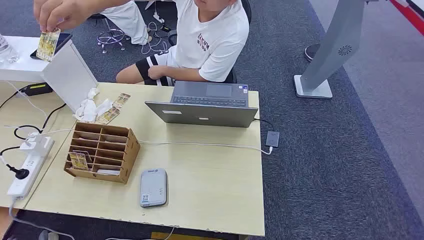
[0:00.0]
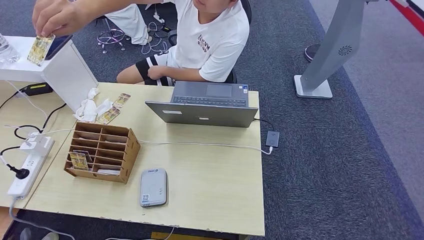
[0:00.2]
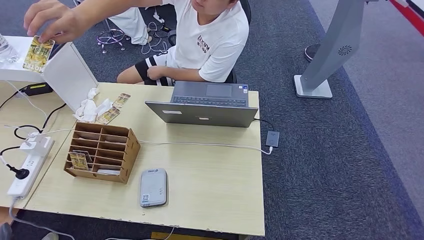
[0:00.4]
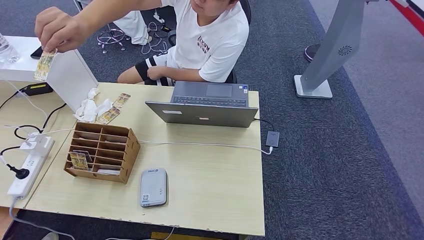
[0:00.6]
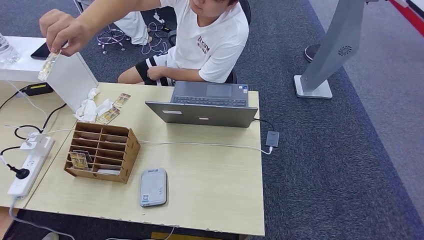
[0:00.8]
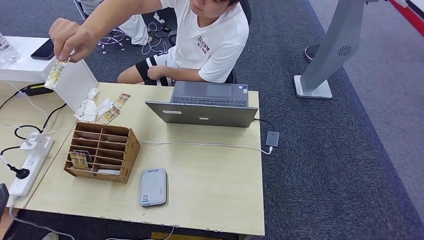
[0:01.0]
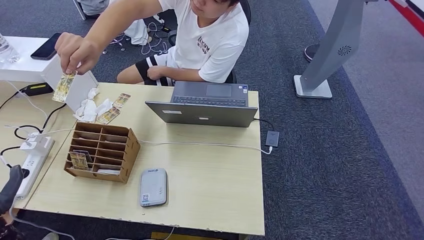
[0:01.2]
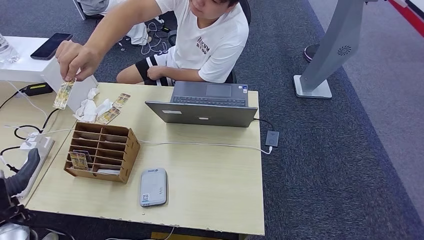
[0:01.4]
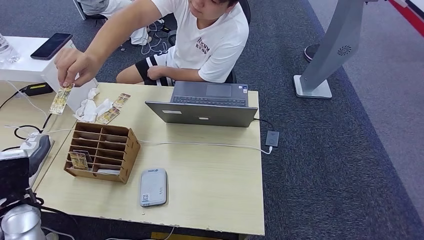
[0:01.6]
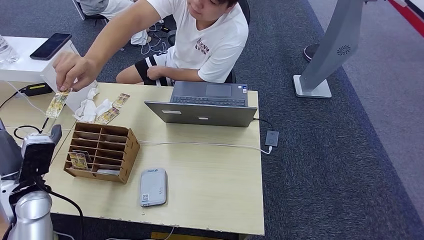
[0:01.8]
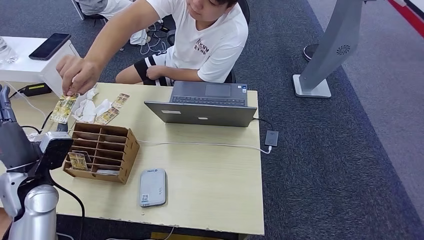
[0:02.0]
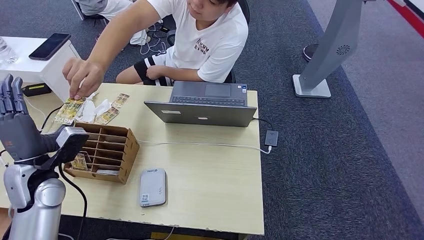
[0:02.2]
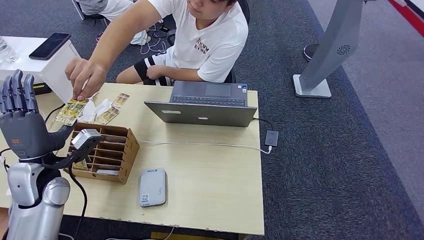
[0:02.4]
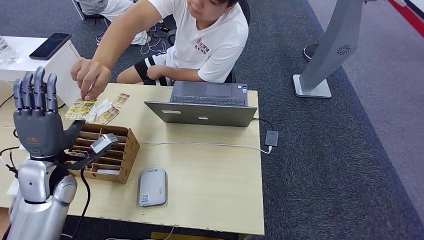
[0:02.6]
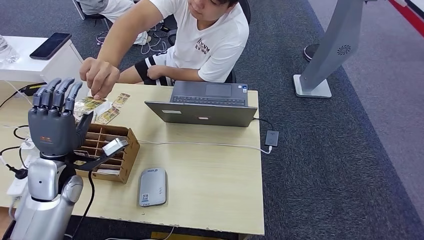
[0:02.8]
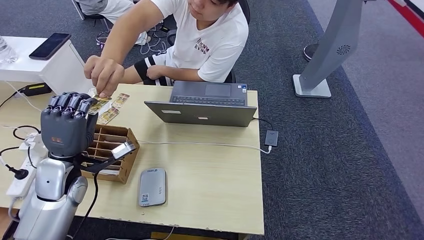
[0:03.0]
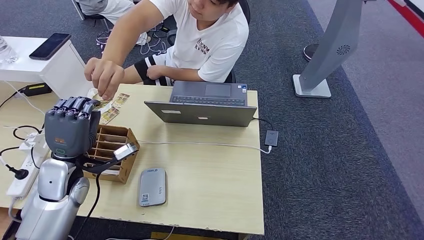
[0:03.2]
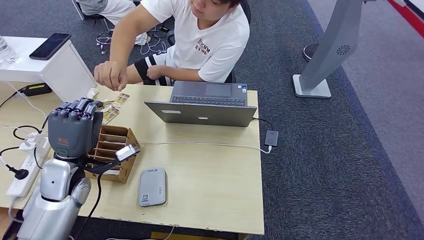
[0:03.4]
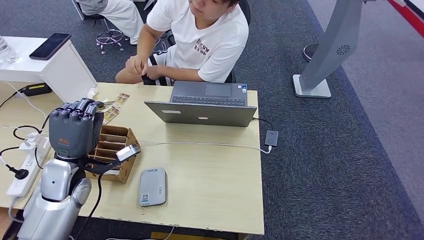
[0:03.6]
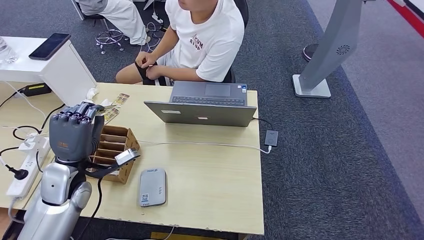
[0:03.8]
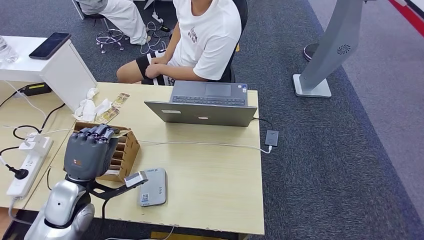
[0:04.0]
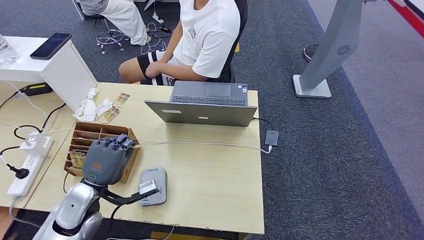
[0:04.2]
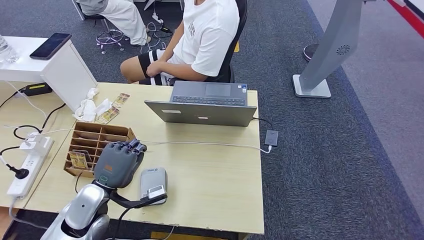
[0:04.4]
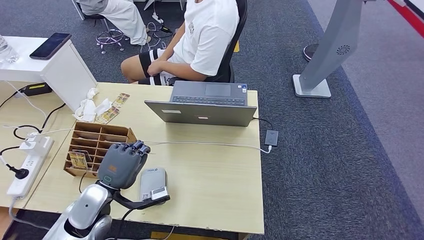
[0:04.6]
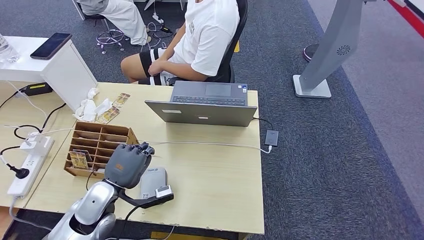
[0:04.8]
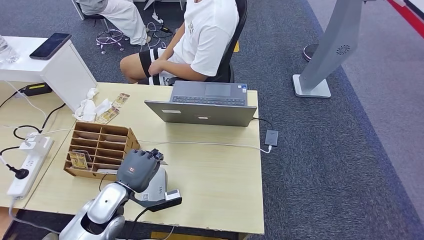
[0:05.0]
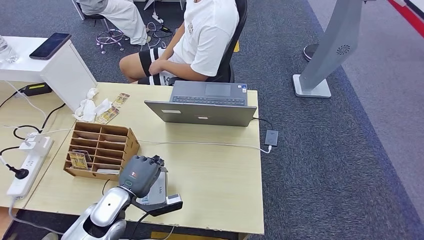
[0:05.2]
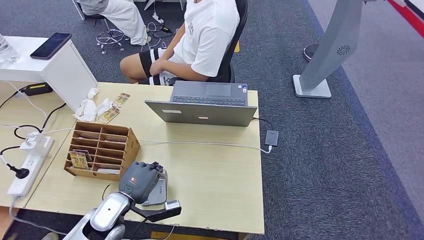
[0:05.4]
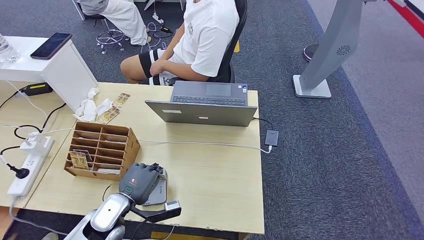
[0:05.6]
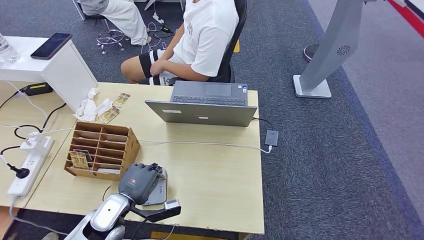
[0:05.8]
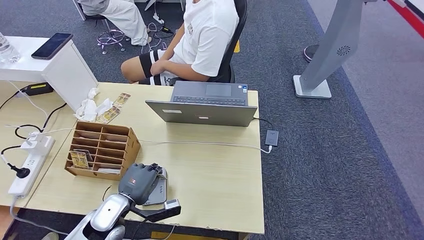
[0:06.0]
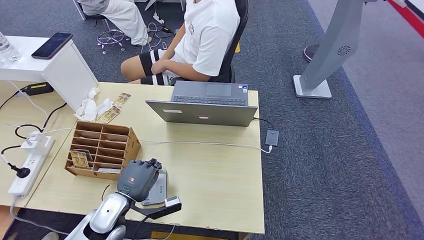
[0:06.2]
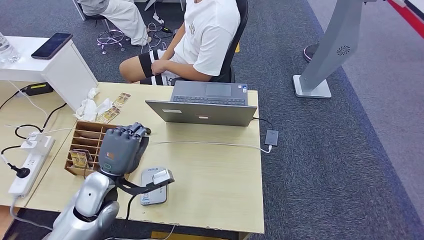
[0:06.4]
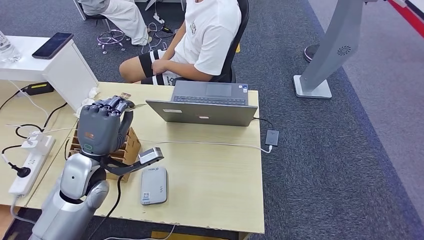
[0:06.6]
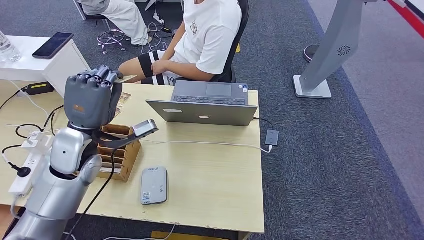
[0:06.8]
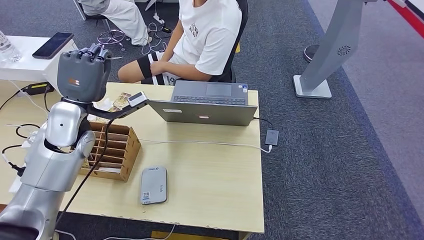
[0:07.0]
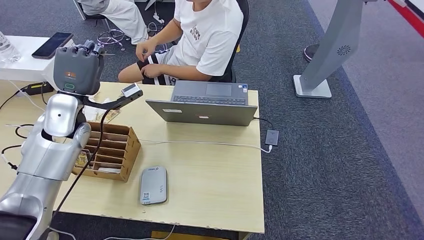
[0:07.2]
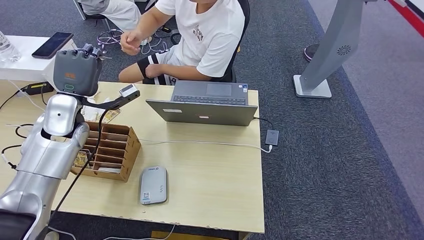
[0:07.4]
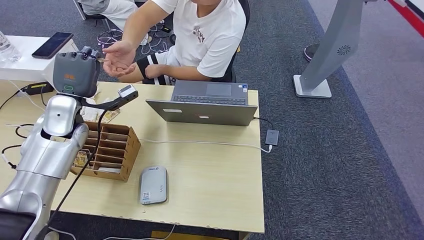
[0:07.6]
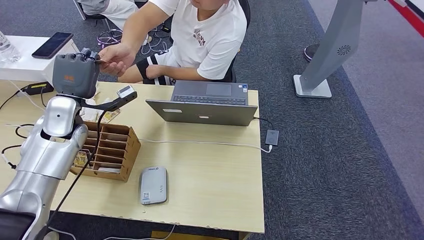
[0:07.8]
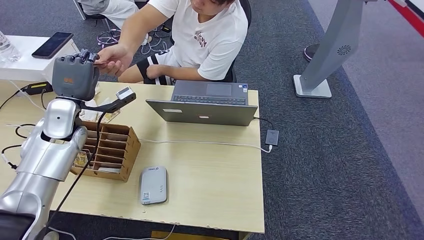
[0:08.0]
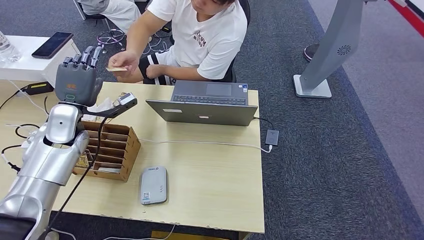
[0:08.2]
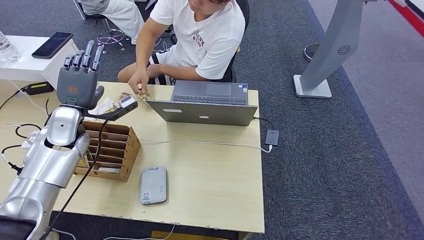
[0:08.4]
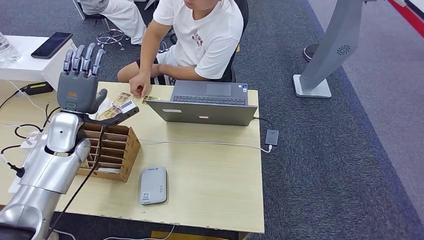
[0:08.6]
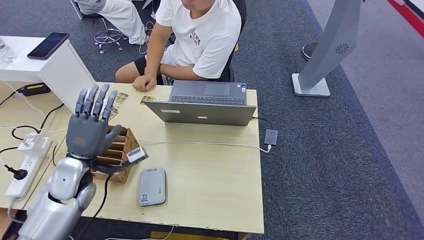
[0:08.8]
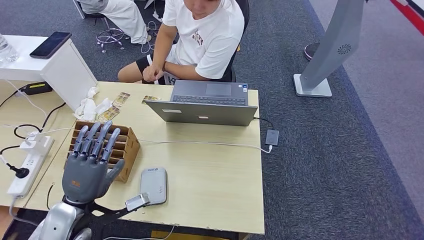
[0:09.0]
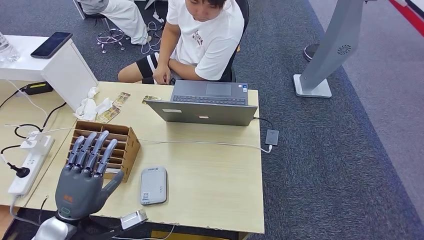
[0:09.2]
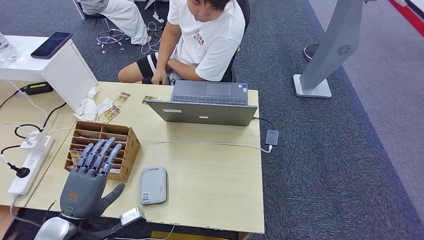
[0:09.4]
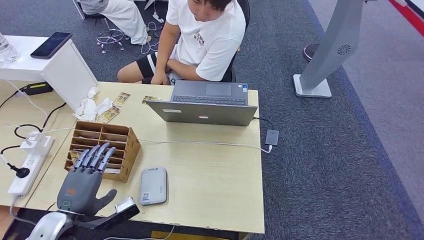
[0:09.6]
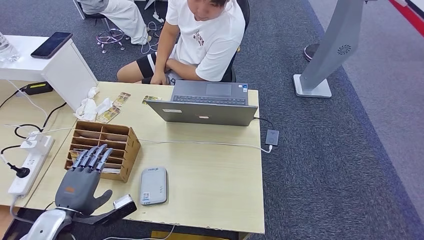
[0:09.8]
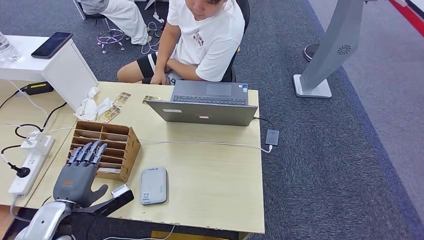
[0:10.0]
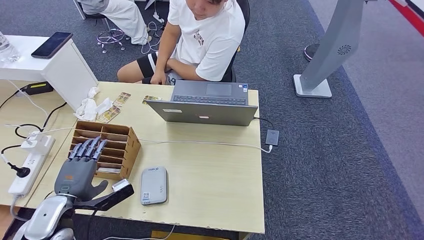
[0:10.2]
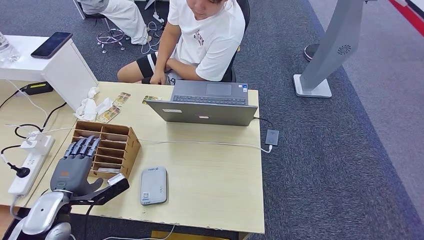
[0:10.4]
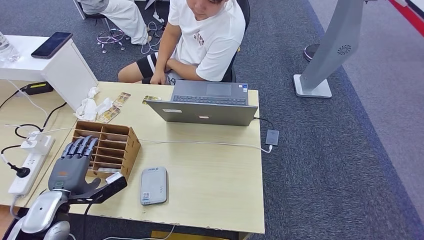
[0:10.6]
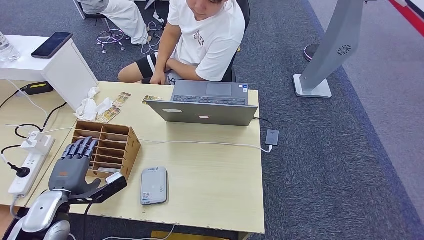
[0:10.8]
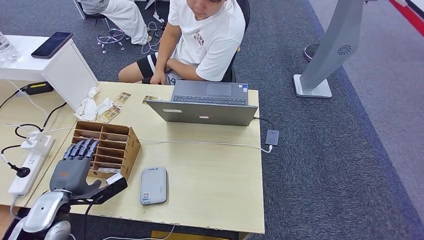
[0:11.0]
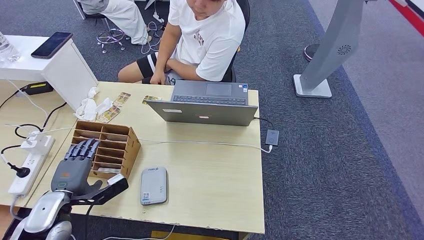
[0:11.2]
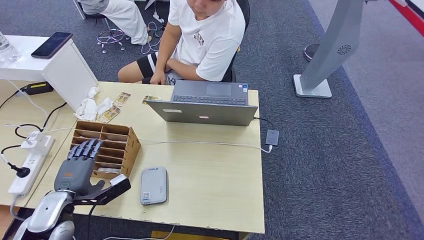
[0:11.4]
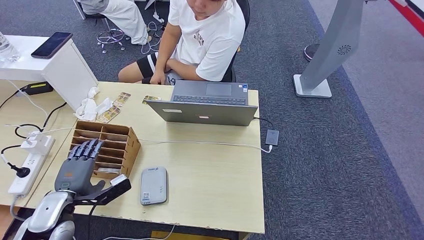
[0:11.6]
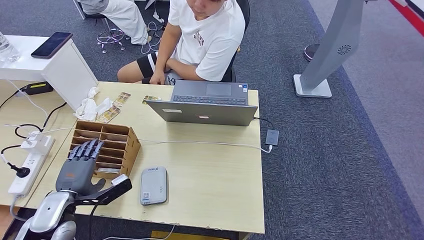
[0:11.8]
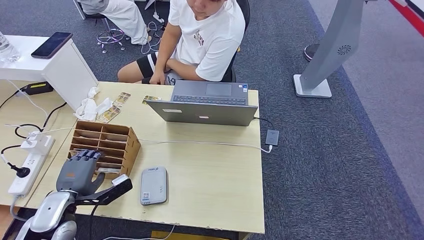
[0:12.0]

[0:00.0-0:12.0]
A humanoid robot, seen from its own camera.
Step, 0:00.0 to 0:02.8: Take the ID card from the person's hand.
Step, 0:03.0 to 0:06.8: Place the ID card on the card reader.
Step, 0:07.2 to 0:09.2: Hand the ID card to the person.
0:01.6 to 0:03.0: The left hand moves forward and to the right, roughly 10 cm.
0:04.4 to 0:06.0: The left hand is displaced downward by approximately 5 cm.
0:09.0 to 0:10.4: The left hand travels to the left by about 5 cm.
0:10.4 to 0:12.0: The hands stay close to where they were, moving slightly.

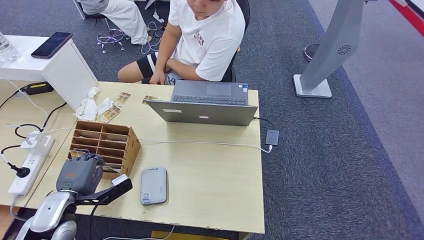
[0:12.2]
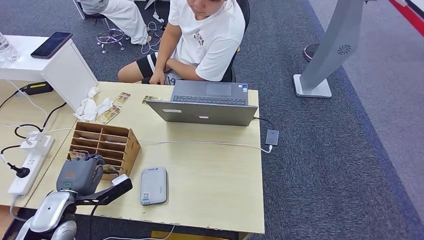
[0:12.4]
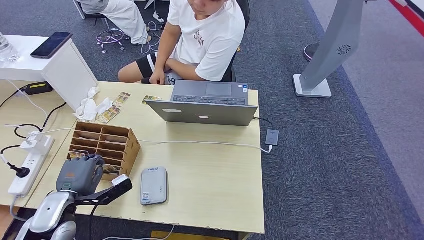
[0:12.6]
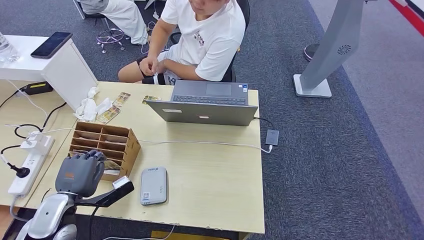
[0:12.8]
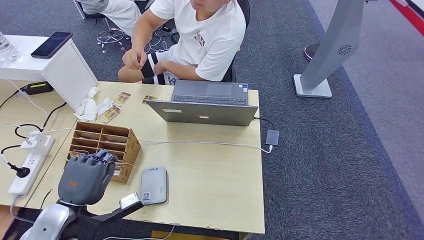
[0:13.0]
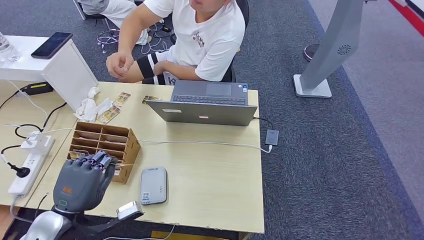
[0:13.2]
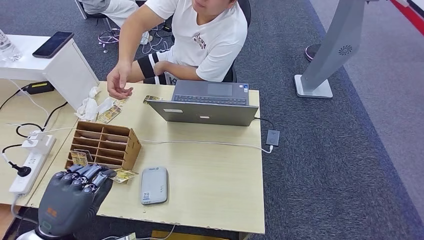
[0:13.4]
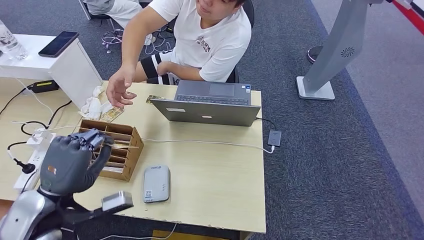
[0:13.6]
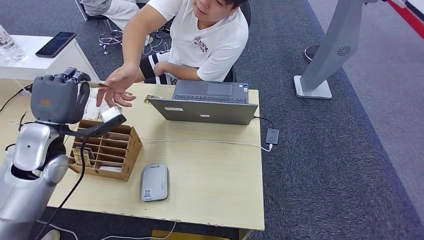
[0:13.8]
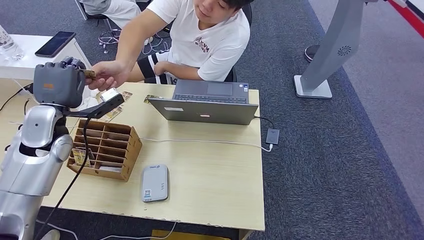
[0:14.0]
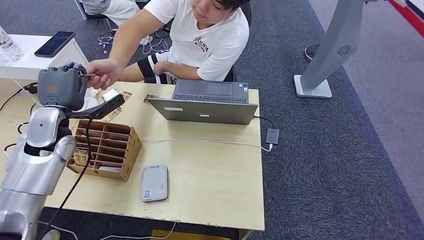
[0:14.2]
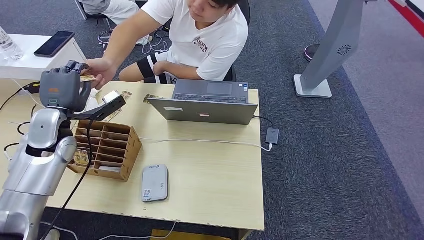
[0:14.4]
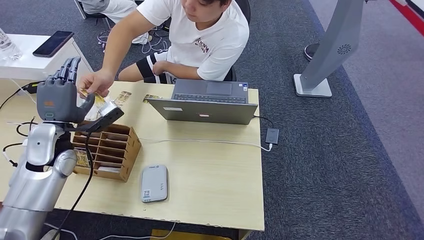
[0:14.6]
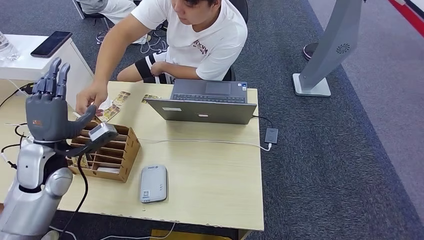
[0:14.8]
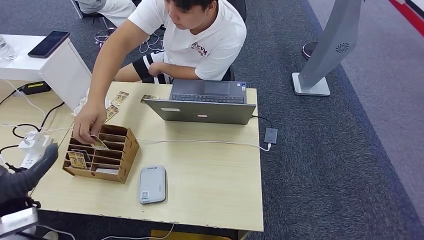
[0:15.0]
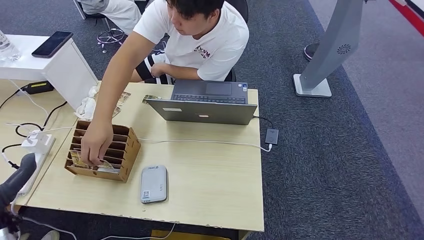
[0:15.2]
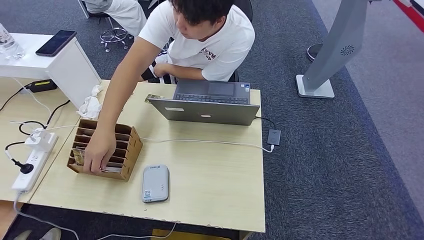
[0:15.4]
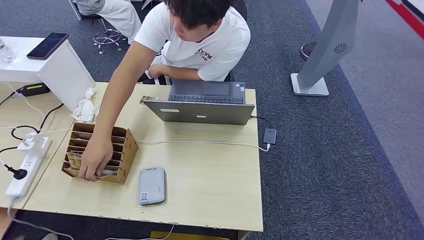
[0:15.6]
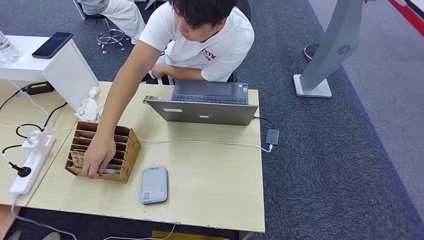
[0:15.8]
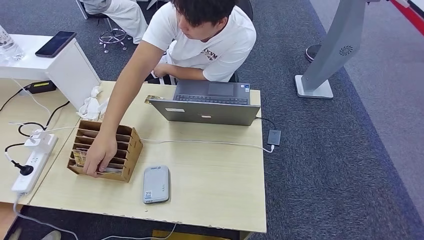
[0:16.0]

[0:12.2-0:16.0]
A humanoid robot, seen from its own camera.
Step, 0:14.0 to 0:16.0: Hand the room key to the person.
0:12.2 to 0:13.4: The left hand is displaced upward, backward and to the right by roughly 10 cm.
